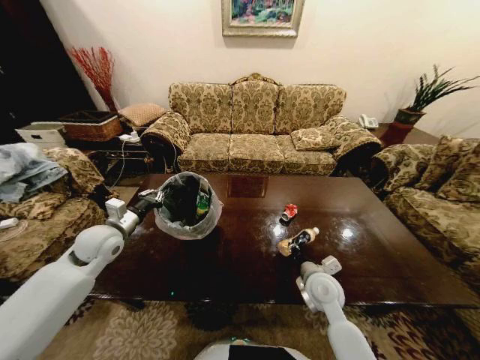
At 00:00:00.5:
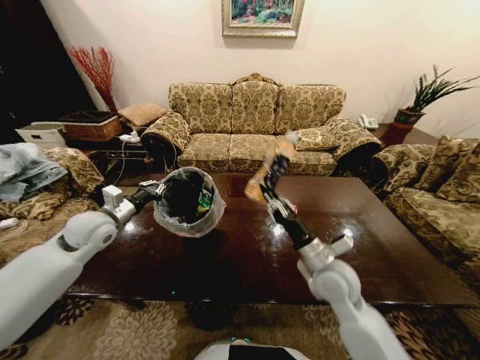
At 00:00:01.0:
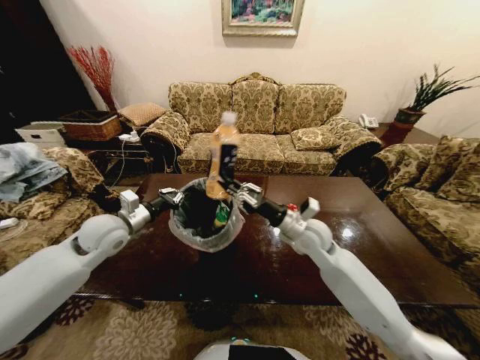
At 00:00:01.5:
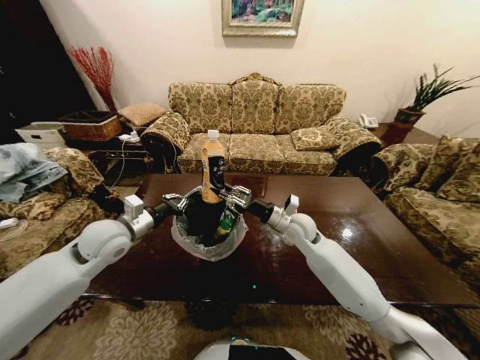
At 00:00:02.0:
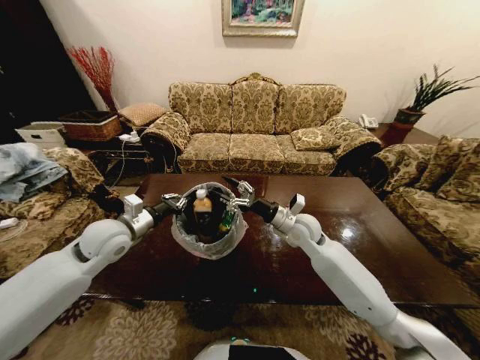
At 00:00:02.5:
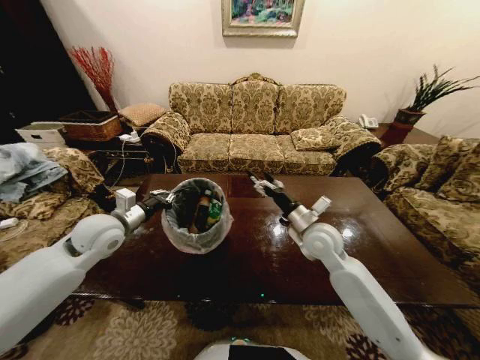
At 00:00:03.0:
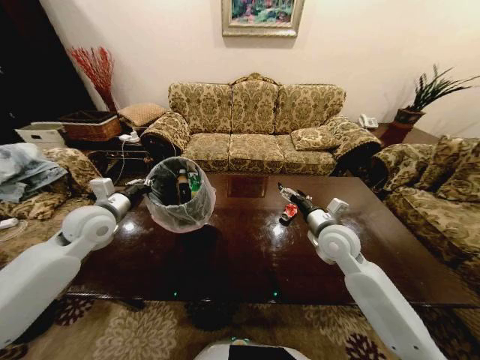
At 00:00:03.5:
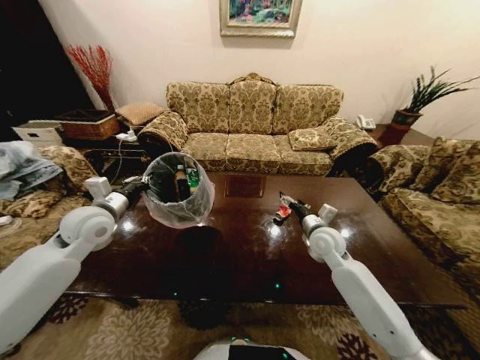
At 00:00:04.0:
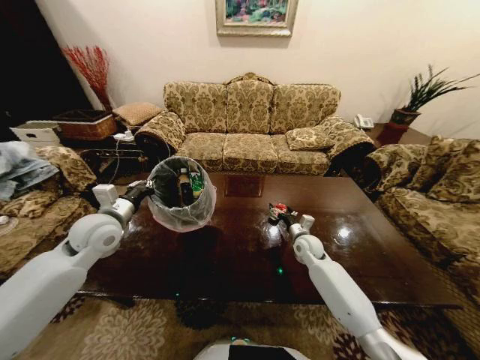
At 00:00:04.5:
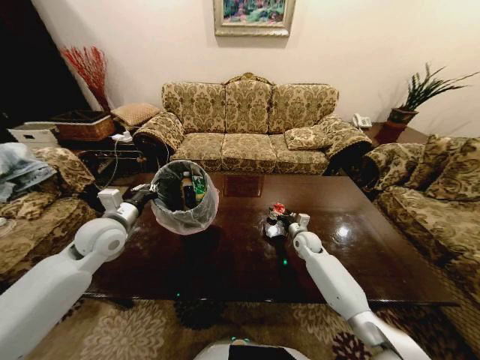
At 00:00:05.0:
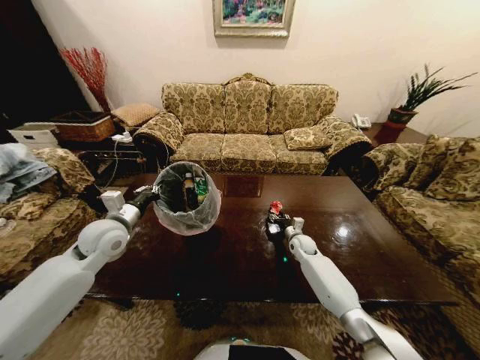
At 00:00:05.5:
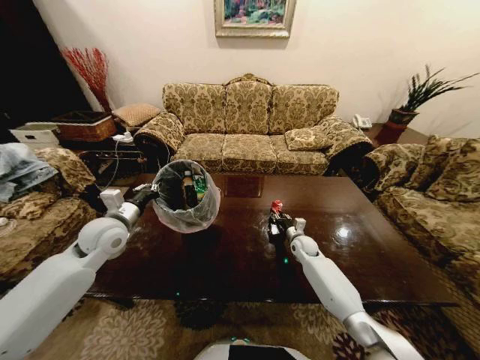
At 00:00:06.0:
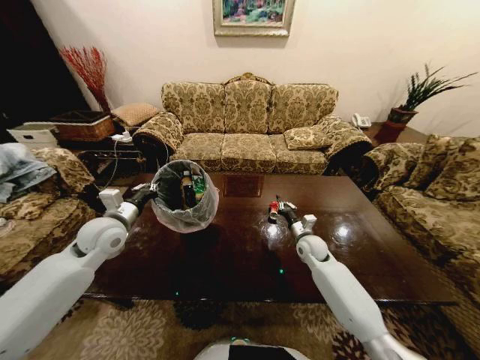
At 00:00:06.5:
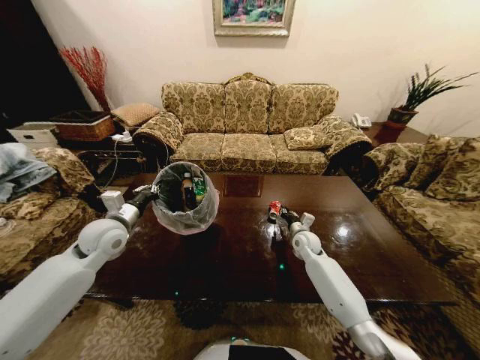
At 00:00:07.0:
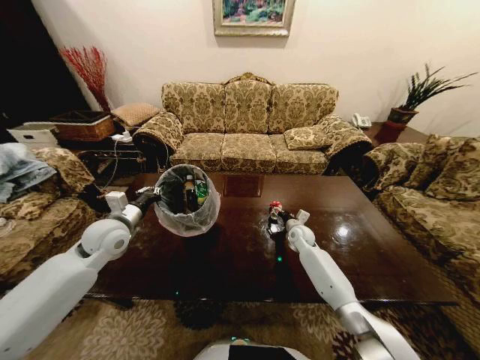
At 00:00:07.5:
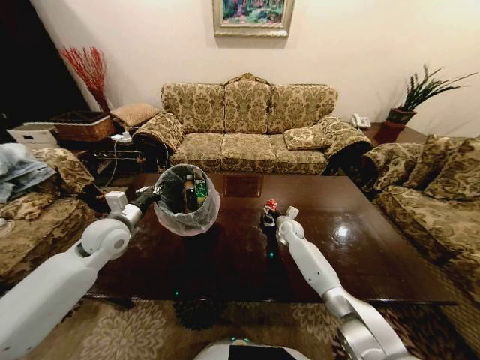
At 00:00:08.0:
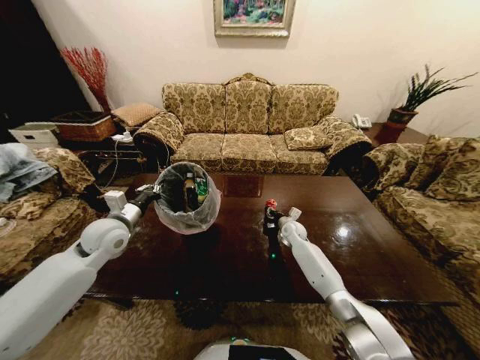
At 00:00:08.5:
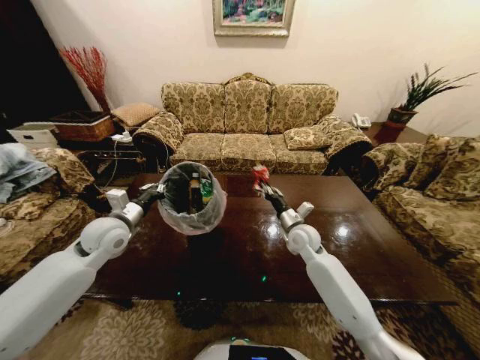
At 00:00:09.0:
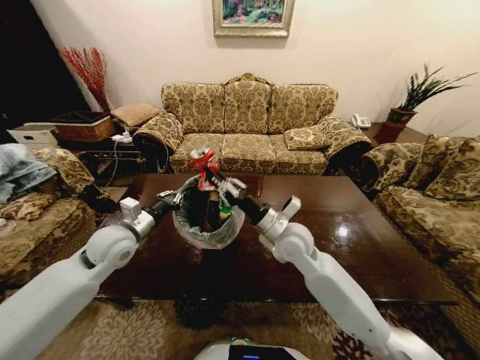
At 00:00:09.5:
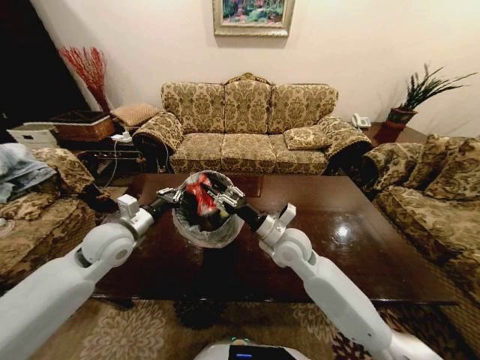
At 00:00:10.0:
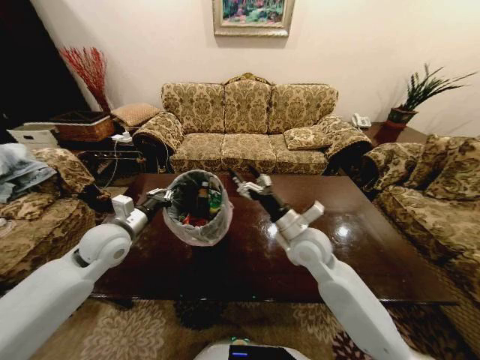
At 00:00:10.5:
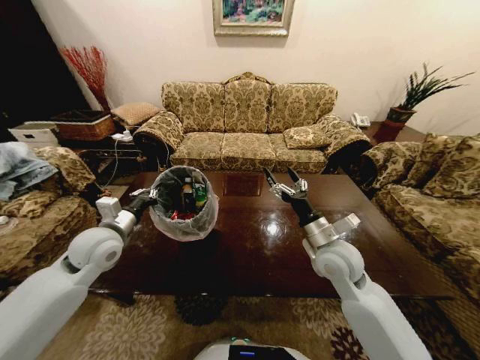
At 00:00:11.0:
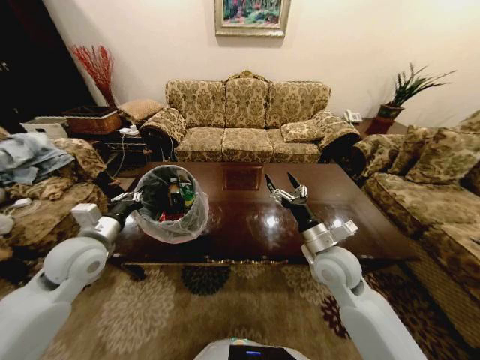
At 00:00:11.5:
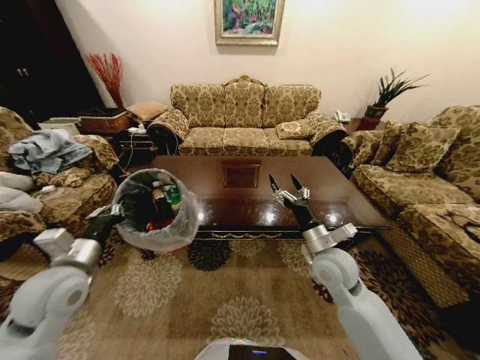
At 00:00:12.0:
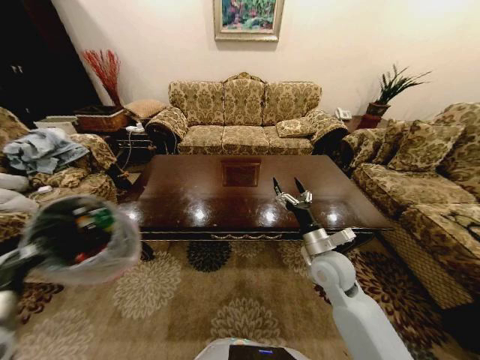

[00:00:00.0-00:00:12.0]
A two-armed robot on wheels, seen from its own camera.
Task of the whole recording: Move to the front of the table and place the trash on the table into the trash bin.
00:00:00.0 to 00:00:02.0: The right gripper moves forward and upward, roughly 15 cm, and opens, while the left gripper moves some 5 cm.
00:00:02.0 to 00:00:04.0: The right gripper is displaced downward and to the right by roughly 15 cm.
00:00:04.0 to 00:00:06.0: The right gripper closes up.
00:00:06.0 to 00:00:08.0: The right gripper goes approximately 10 cm forward, and opens its fingers.
00:00:08.0 to 00:00:10.0: The right gripper shifts about 25 cm upward and backward, and opens.
00:00:10.0 to 00:00:12.0: The right gripper goes some 5 cm to the right; the left gripper travels backward and to the left by about 20 cm.

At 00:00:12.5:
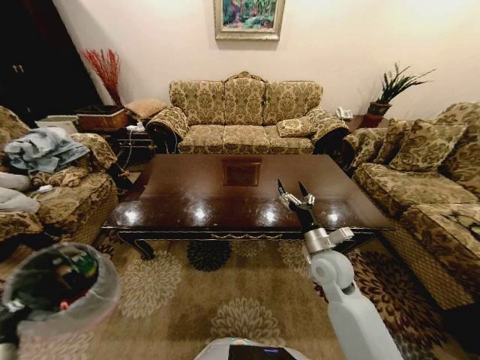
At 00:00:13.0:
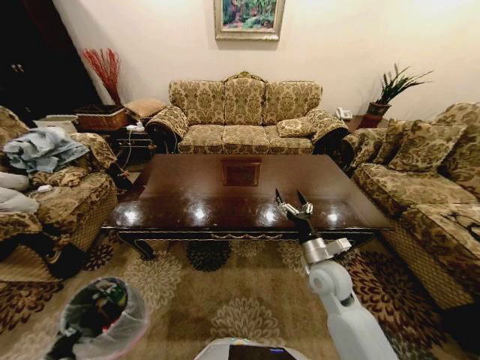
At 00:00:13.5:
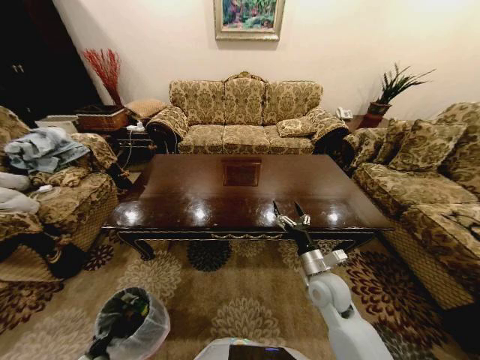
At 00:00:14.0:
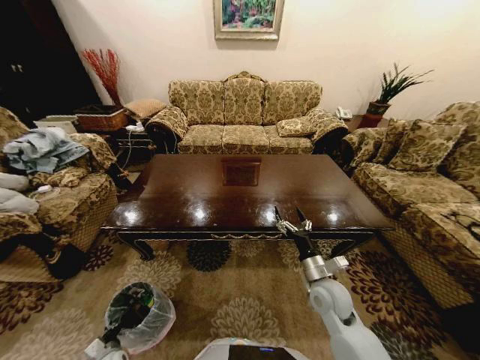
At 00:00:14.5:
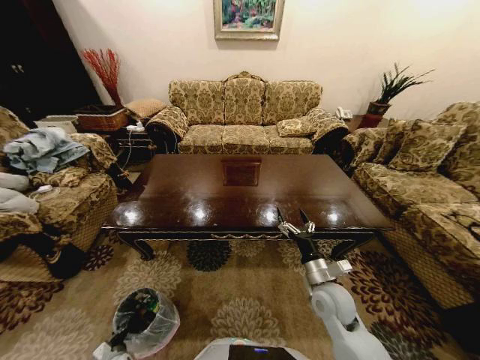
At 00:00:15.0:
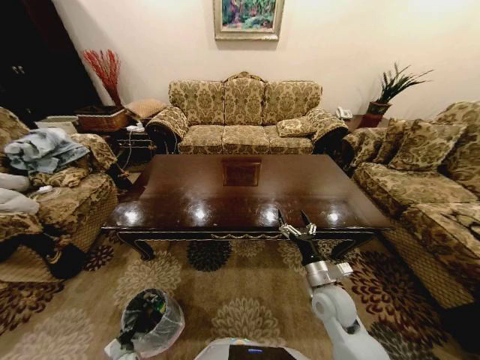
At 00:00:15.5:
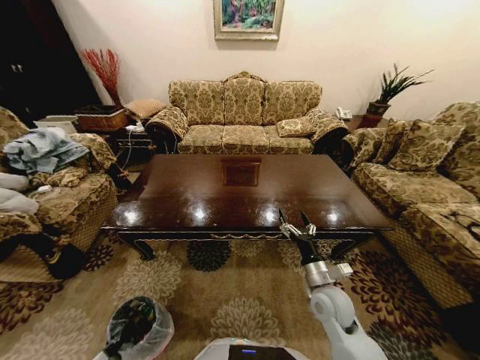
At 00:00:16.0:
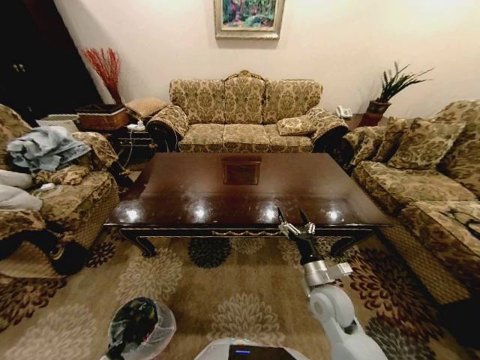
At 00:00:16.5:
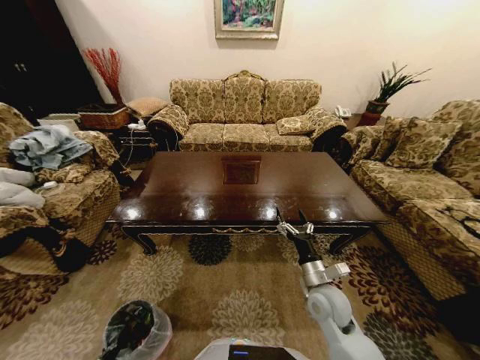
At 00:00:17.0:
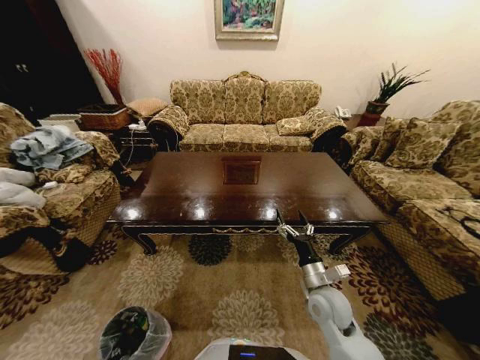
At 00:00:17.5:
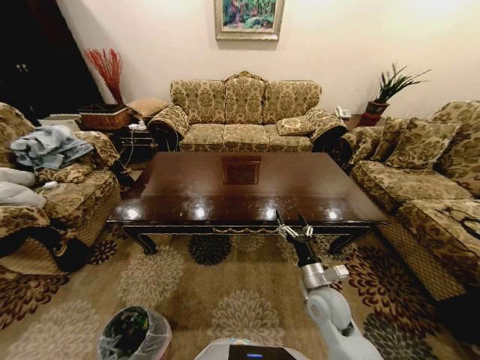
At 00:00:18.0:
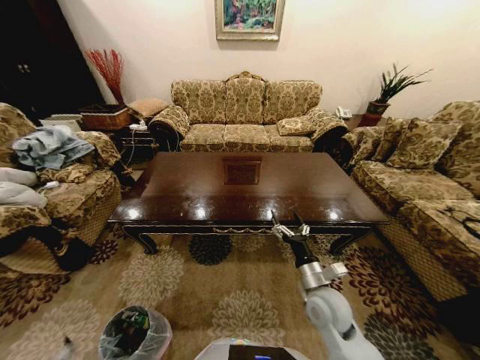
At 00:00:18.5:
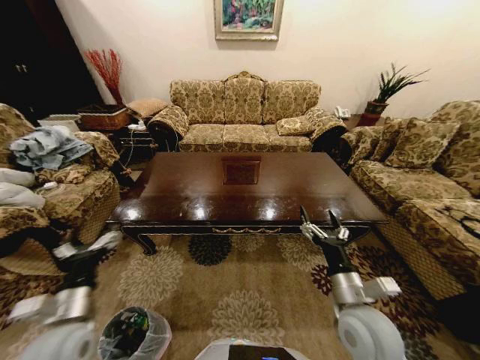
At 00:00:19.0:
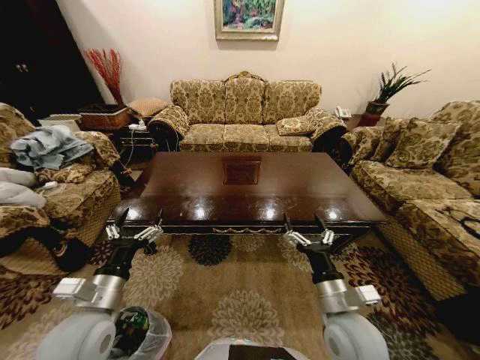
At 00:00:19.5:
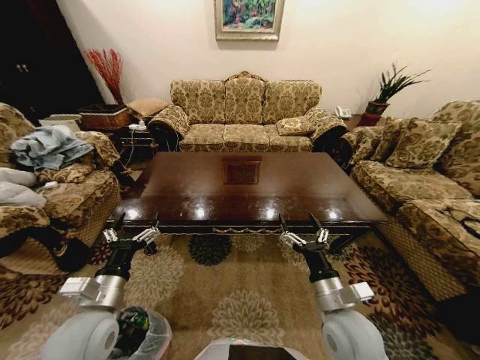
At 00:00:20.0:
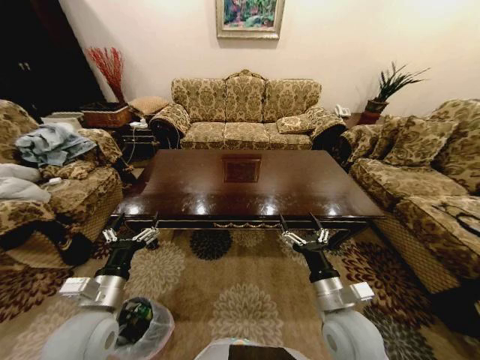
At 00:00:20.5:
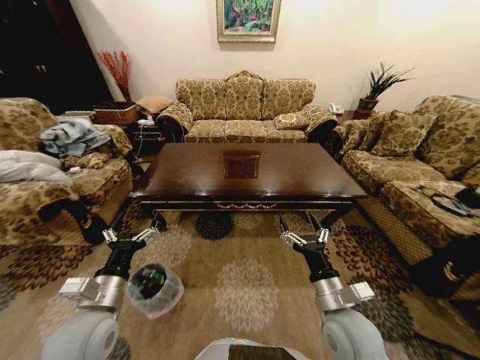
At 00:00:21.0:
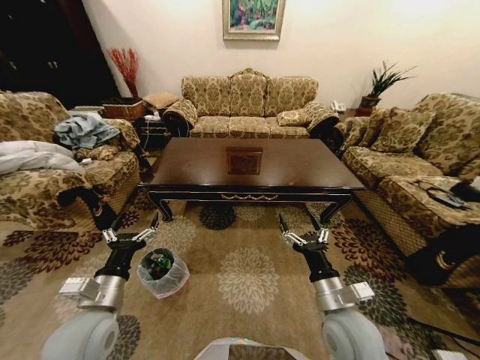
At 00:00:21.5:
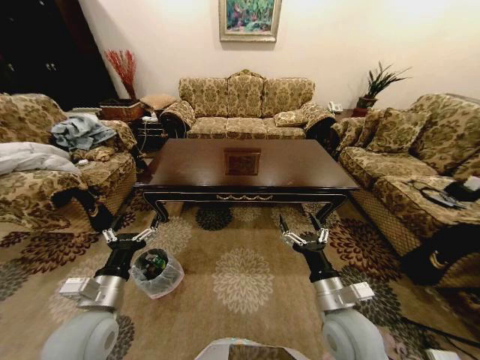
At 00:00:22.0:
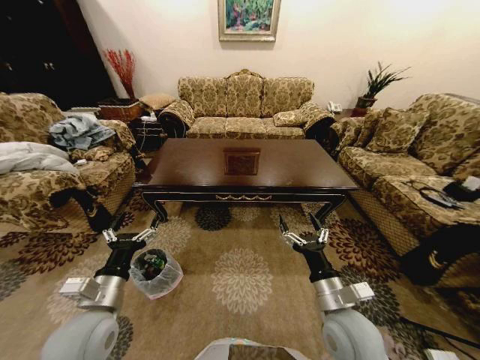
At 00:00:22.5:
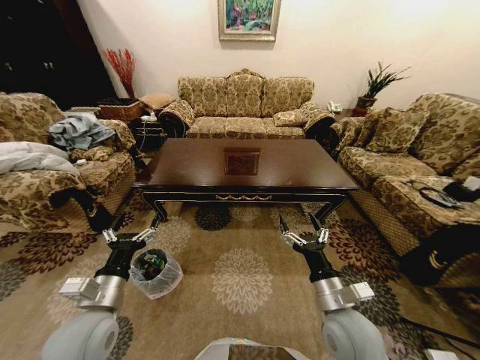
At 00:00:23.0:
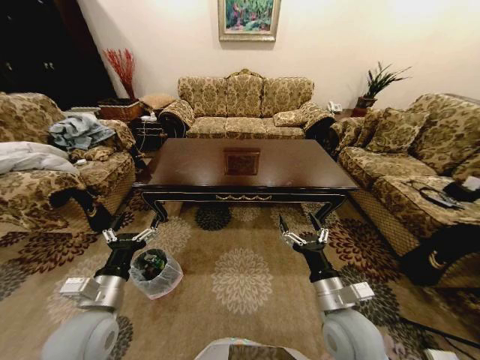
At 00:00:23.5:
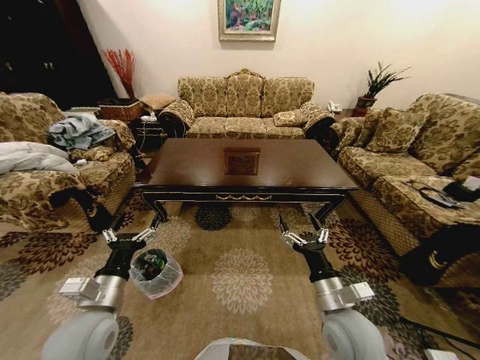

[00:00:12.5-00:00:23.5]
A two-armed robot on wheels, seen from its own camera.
Task of the whole recording: Move to the front of the table and place the trash on the table into the trash bin.
00:00:12.5 to 00:00:14.5: The right gripper heads backward and downward, covering approximately 10 cm. The left gripper is displaced downward by about 35 cm.
00:00:14.5 to 00:00:16.0: The grippers make only small movements.
00:00:16.0 to 00:00:18.0: The left gripper heads upward and backward, covering approximately 20 cm, and opens up.
00:00:18.0 to 00:00:20.0: The right gripper heads backward, covering about 5 cm. The left gripper goes roughly 35 cm upward, forward and to the right.
00:00:21.5 to 00:00:23.5: Both grippers stay put.
